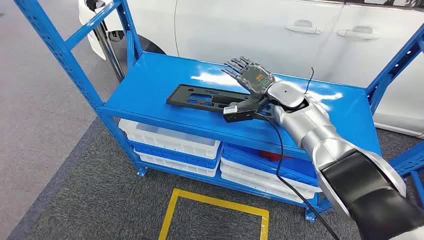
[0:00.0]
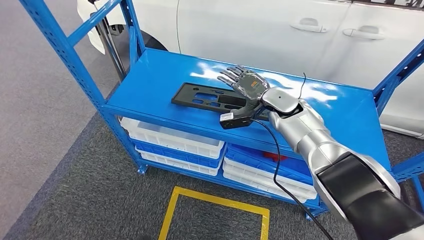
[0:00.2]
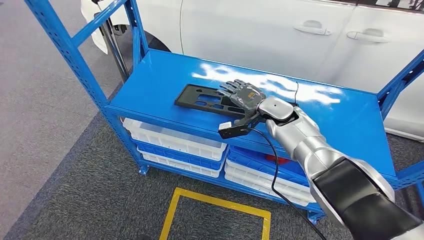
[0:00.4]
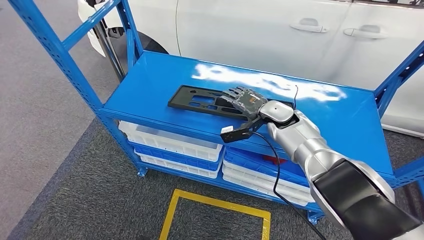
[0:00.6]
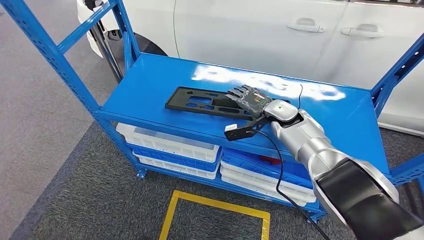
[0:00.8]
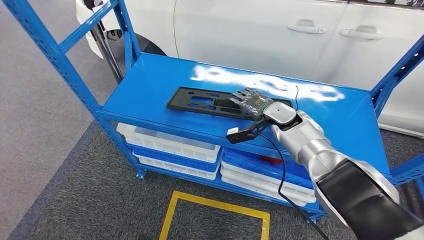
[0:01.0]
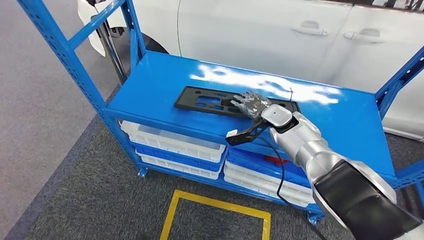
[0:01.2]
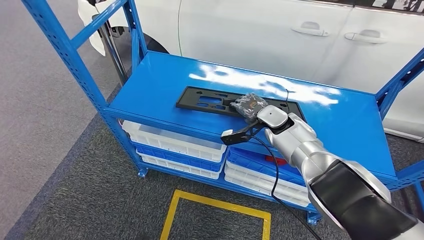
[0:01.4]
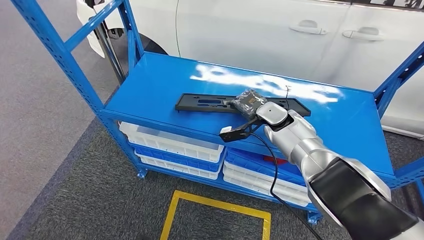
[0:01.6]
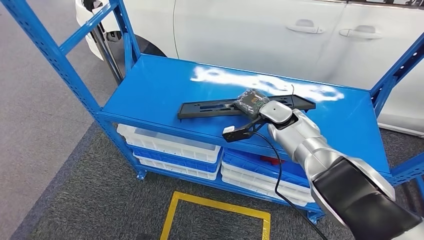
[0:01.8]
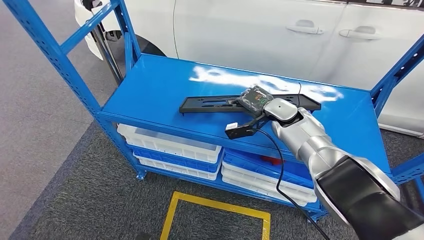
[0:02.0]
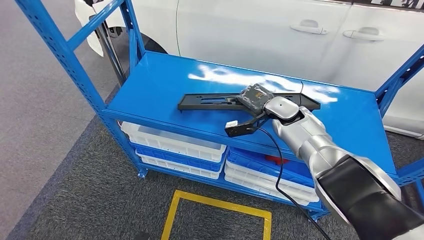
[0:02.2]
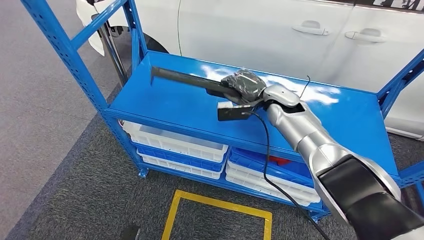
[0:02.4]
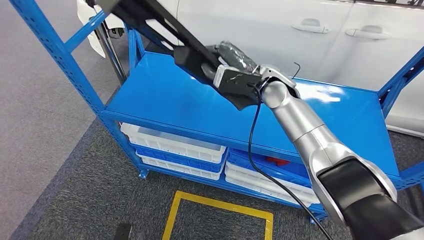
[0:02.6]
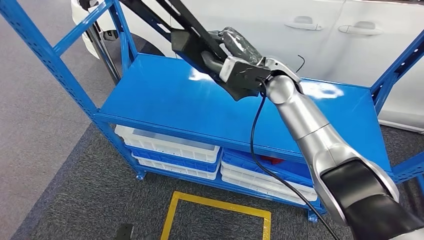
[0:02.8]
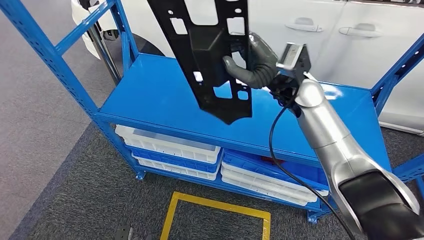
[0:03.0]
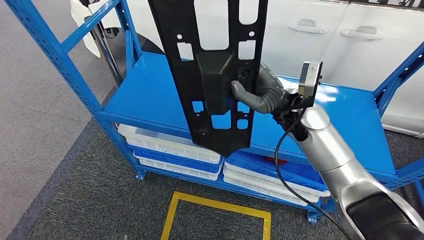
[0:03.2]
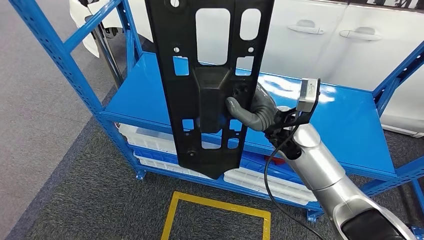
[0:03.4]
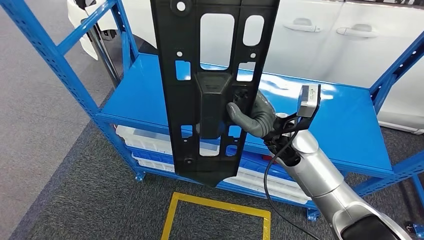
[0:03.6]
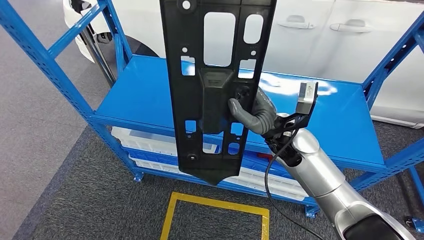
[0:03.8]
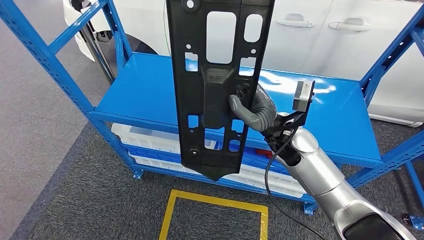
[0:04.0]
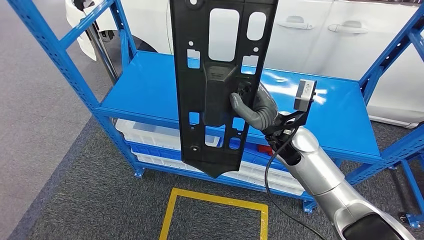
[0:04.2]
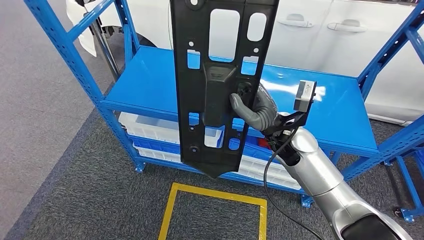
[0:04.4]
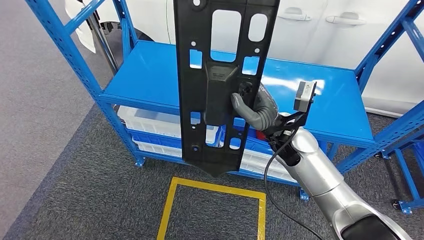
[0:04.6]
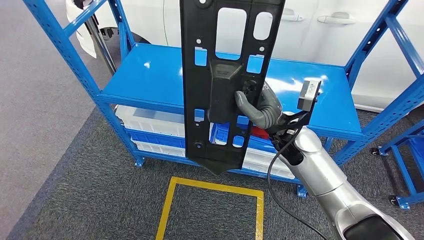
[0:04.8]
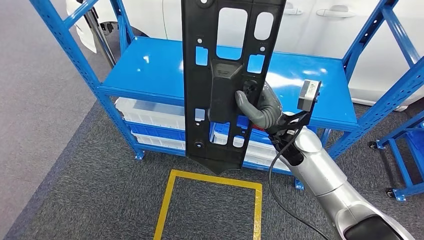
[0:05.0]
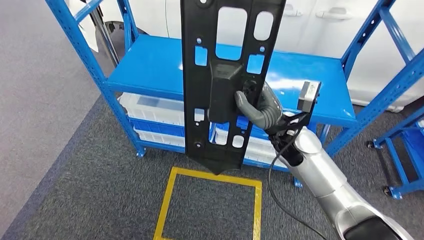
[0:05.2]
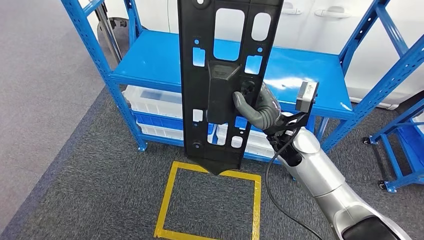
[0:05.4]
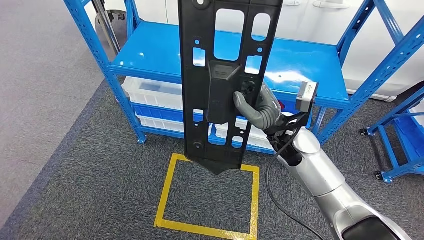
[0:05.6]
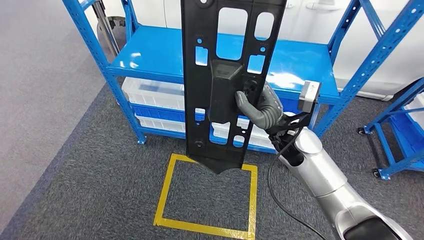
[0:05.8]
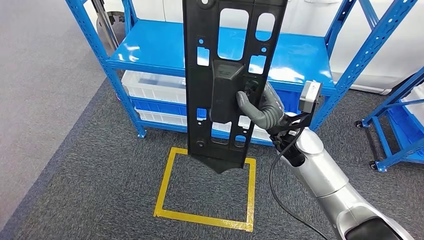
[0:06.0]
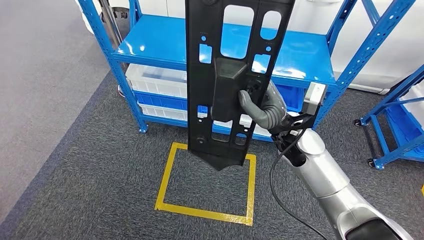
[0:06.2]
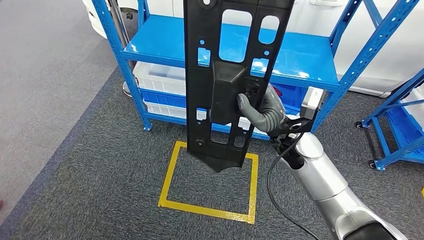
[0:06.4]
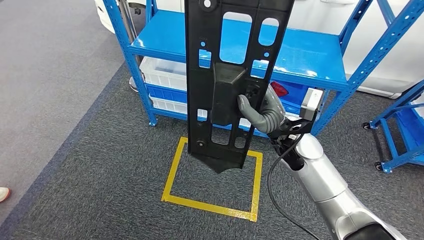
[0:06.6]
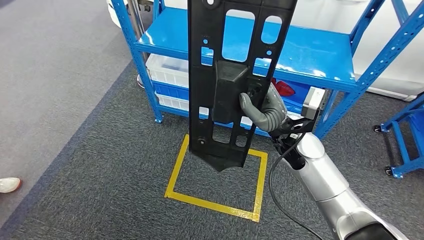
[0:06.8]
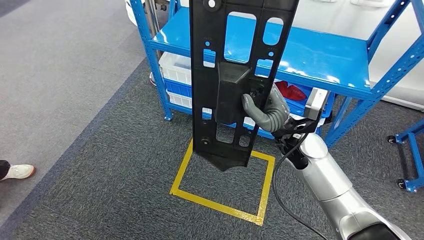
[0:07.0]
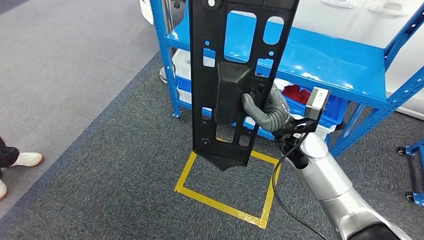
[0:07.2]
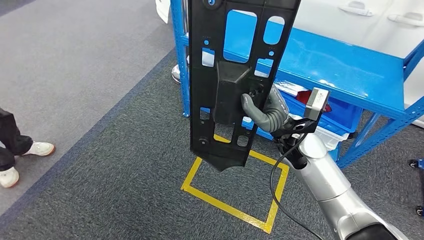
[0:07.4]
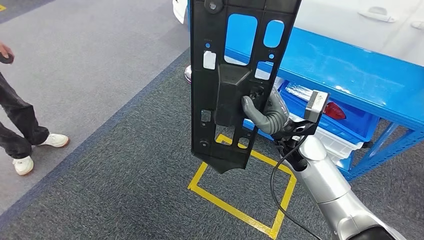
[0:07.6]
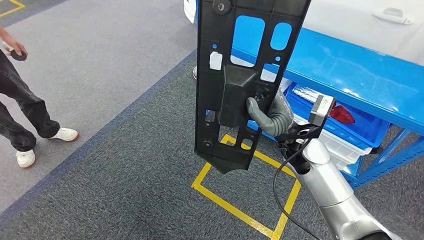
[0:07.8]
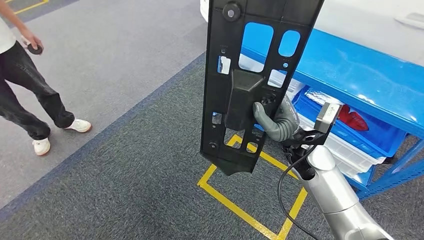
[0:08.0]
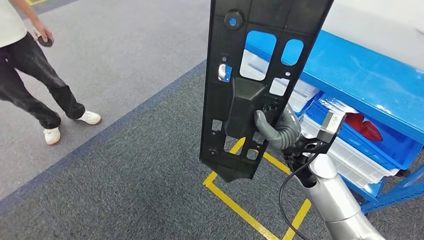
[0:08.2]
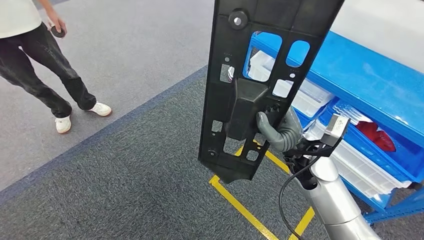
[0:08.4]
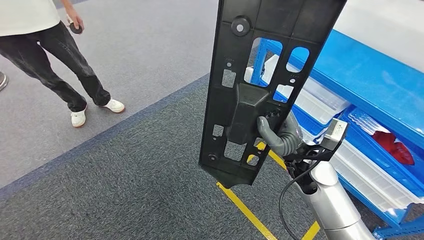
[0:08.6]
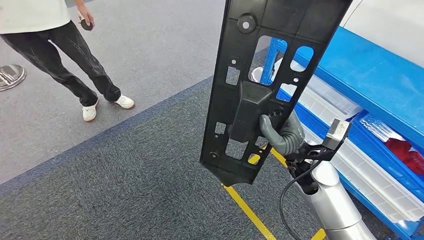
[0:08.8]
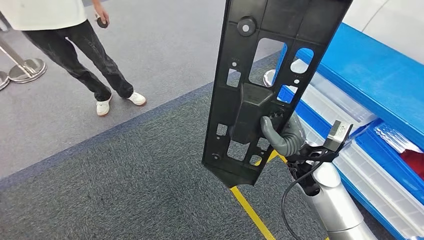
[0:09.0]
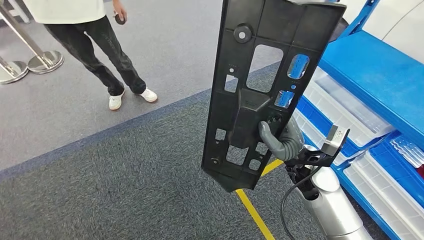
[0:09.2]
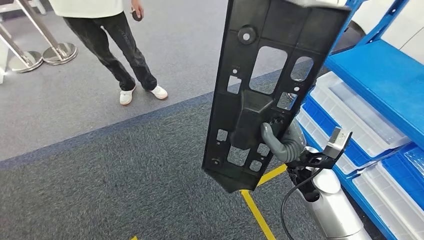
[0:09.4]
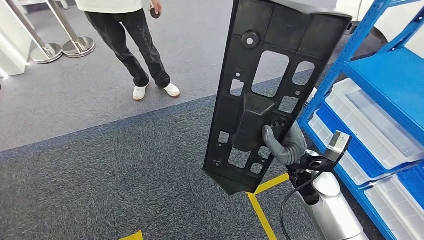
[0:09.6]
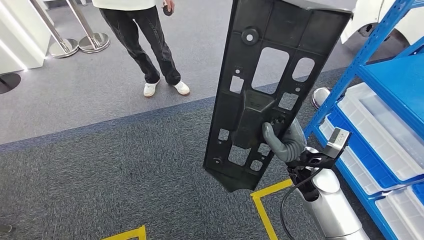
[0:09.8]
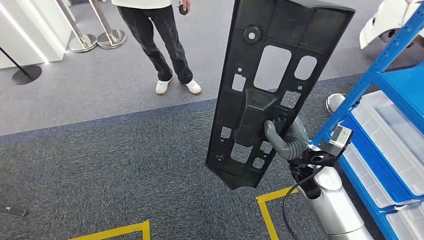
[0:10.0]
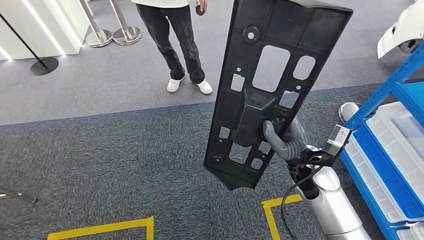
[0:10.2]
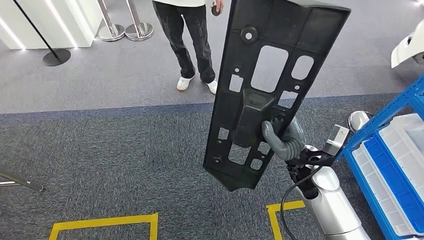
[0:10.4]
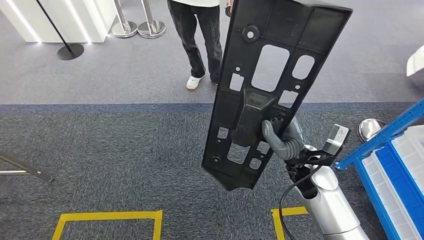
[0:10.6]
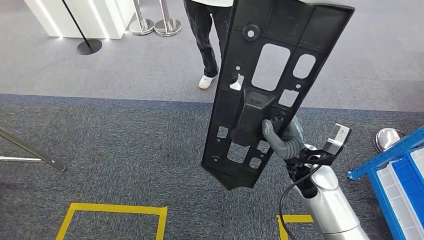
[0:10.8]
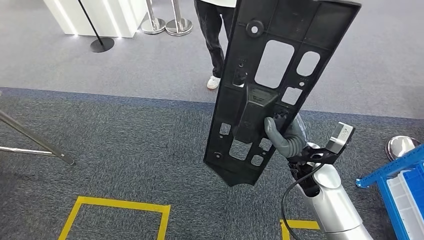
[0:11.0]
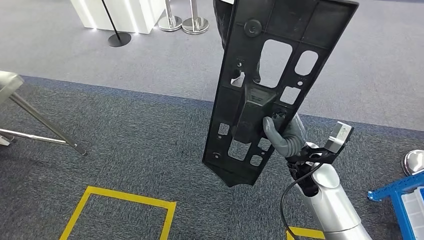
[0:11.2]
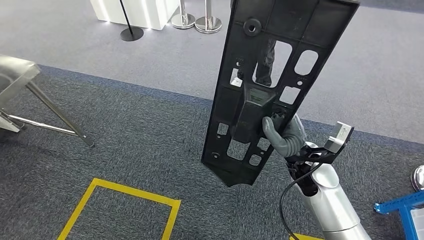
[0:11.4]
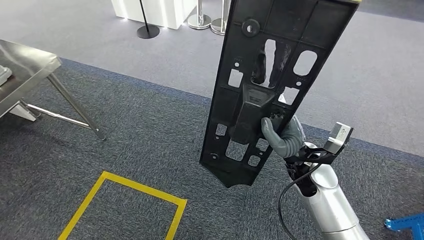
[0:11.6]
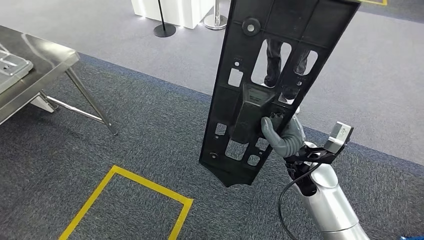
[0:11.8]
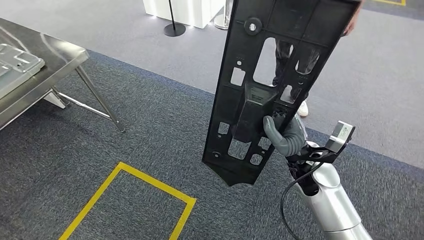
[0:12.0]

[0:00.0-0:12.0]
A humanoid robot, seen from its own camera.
Step, 0:00.0 to 0:03.0: Pick up the large material from the shelf.

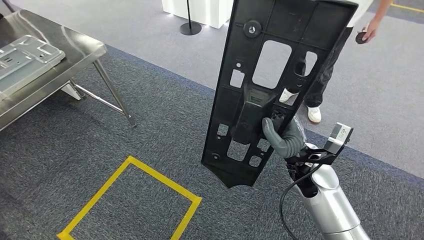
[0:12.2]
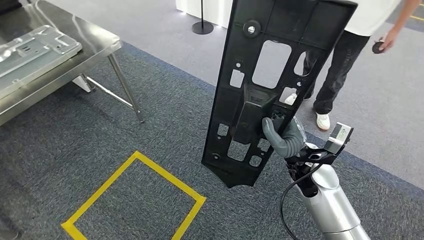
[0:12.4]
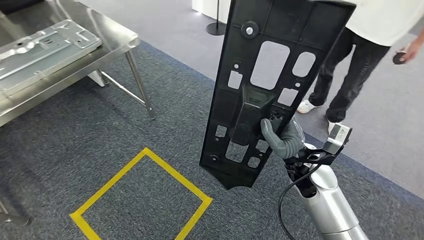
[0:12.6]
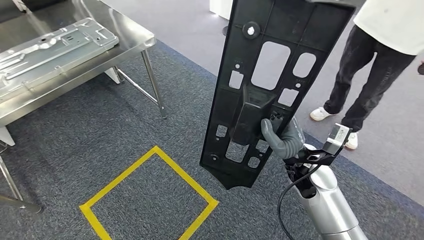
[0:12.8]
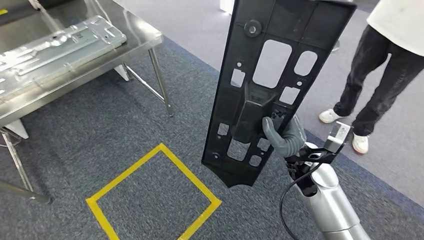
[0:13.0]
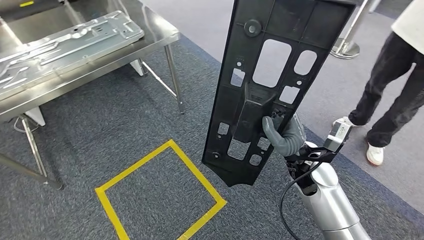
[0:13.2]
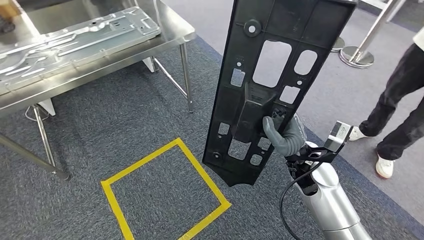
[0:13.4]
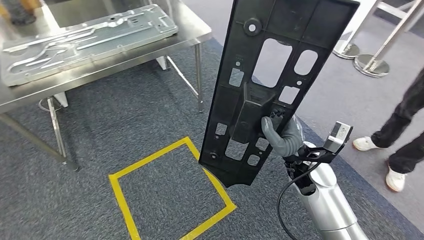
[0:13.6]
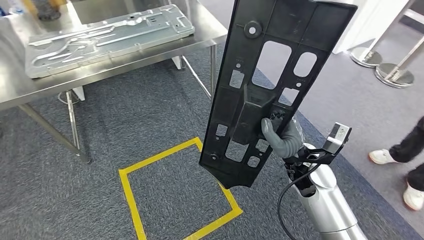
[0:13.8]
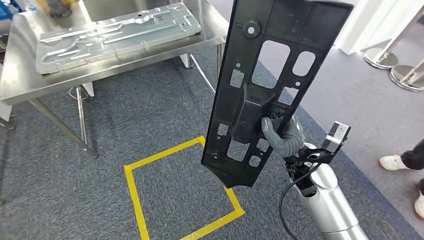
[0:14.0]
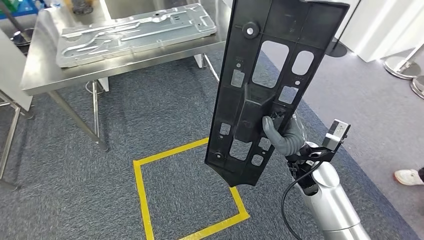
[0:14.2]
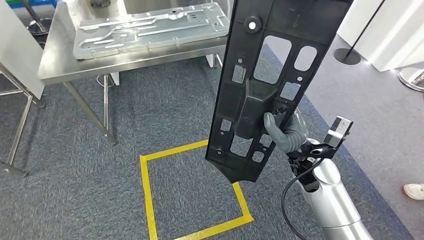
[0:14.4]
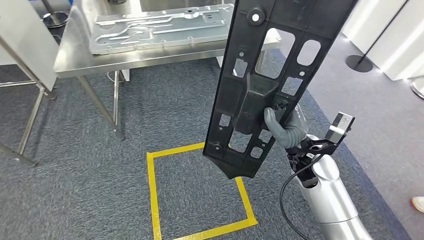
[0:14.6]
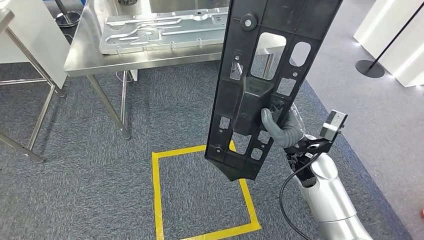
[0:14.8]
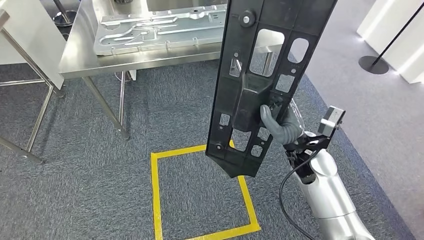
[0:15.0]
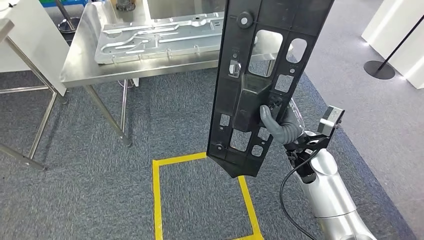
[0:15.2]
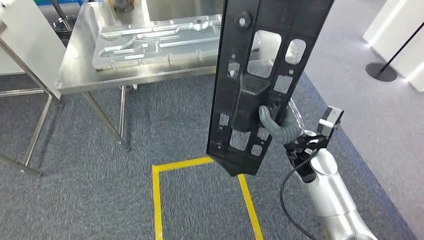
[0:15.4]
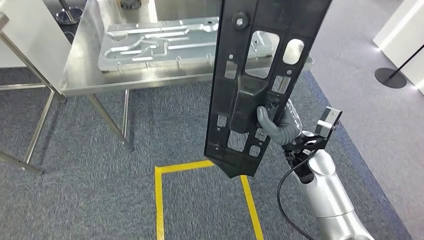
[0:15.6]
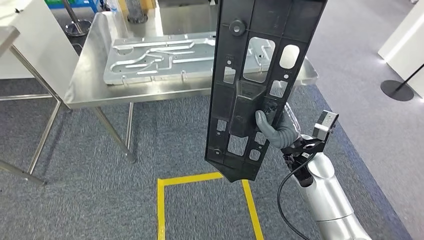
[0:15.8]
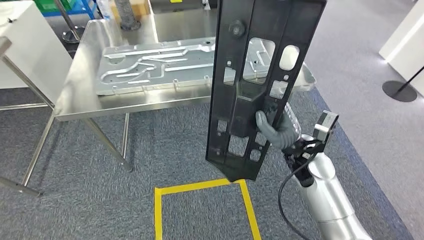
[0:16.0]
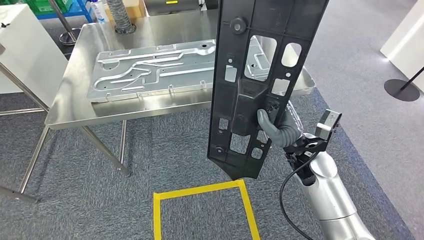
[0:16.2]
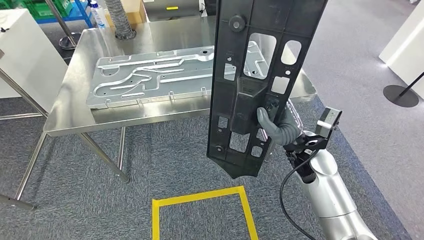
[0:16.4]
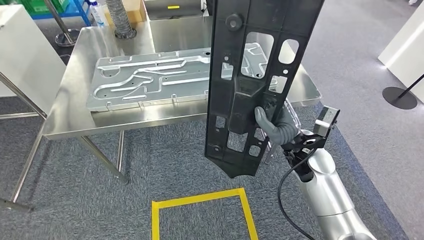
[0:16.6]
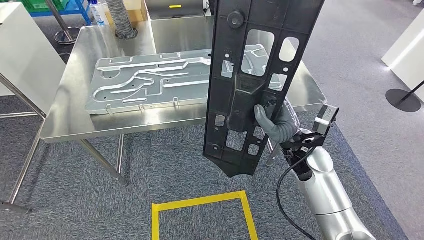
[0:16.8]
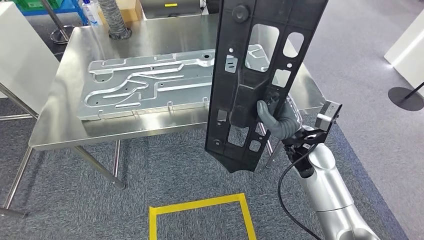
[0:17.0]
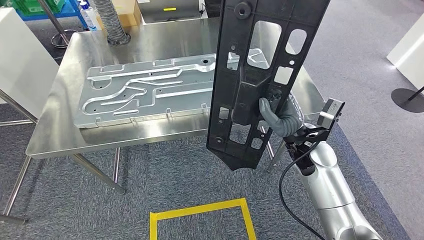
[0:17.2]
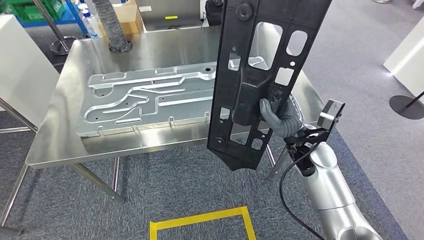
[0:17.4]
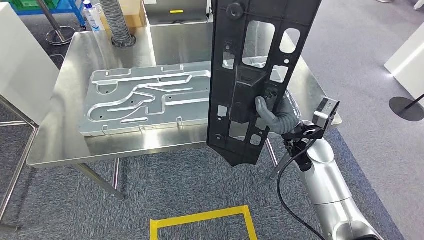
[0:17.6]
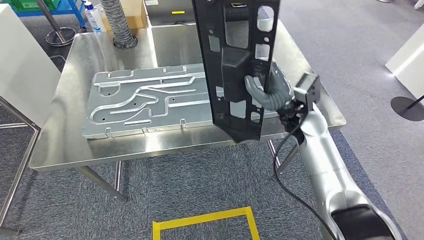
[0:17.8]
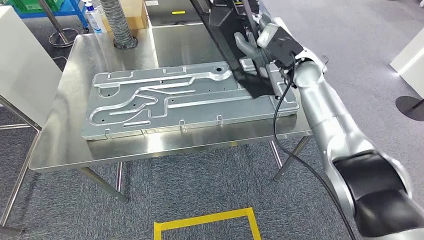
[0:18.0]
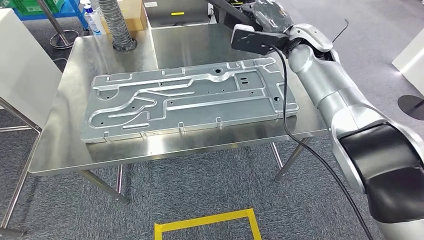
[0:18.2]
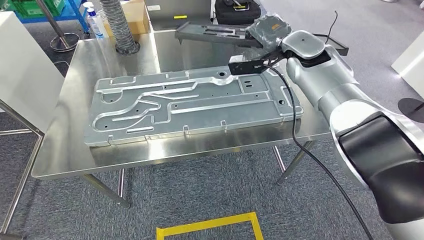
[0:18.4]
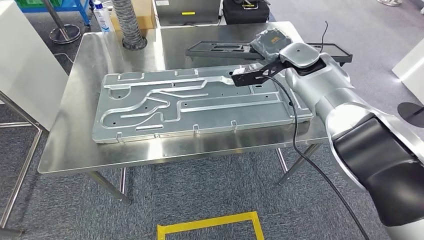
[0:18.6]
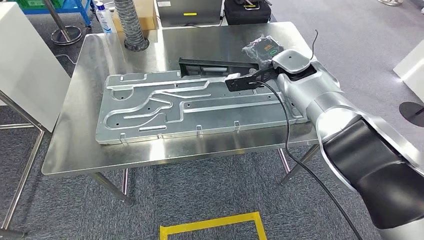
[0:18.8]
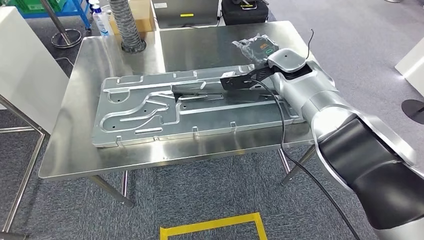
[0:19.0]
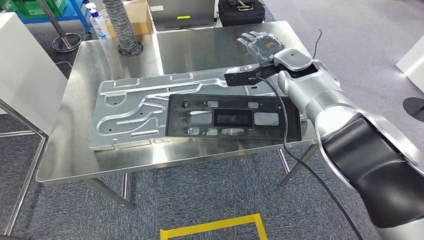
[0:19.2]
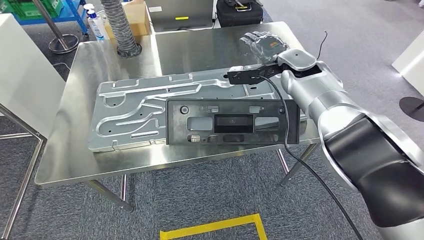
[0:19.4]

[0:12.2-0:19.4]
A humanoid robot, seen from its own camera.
Step, 0:12.2 to 0:17.0: Move the large material to the workbench.
